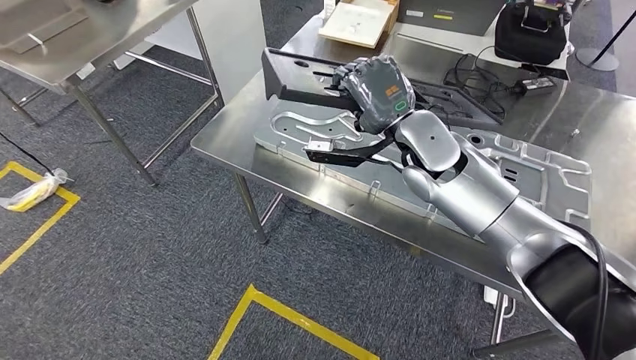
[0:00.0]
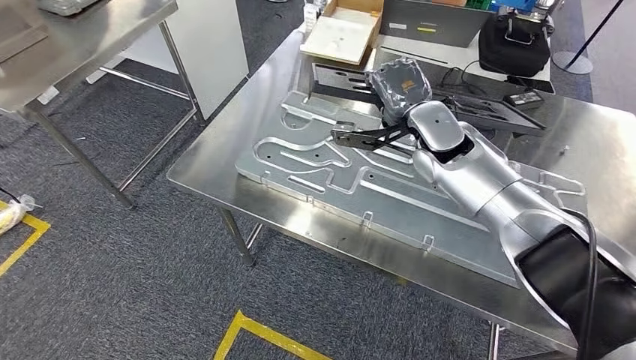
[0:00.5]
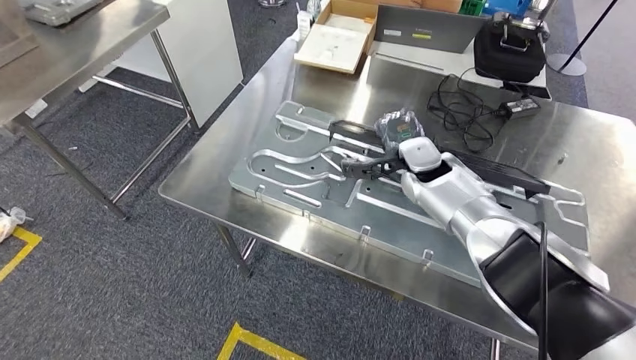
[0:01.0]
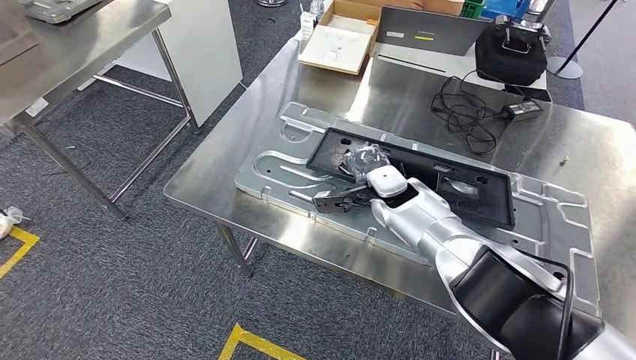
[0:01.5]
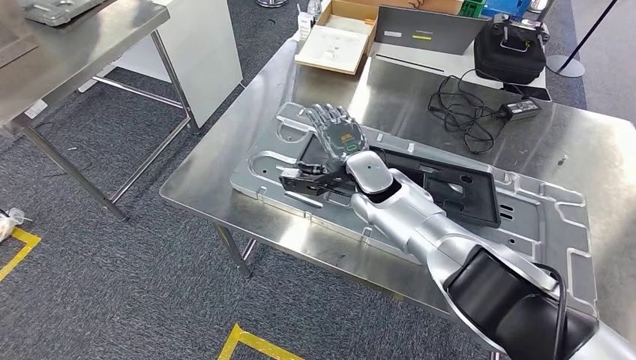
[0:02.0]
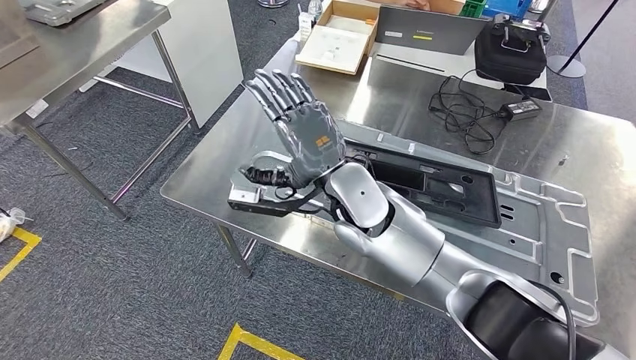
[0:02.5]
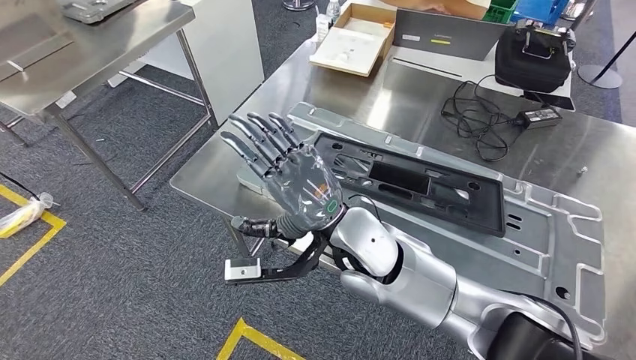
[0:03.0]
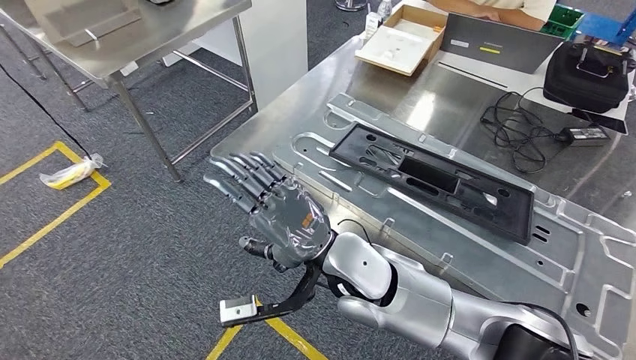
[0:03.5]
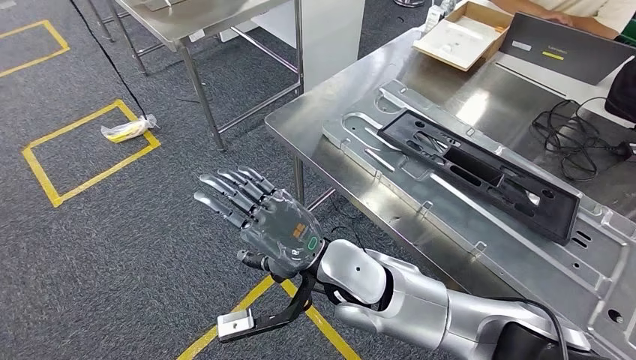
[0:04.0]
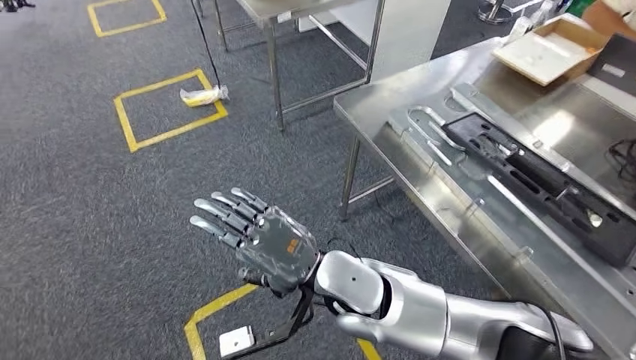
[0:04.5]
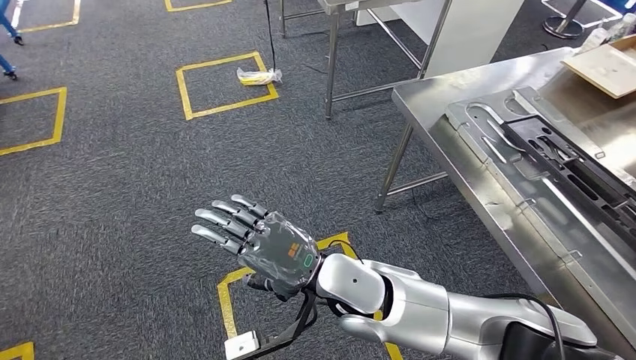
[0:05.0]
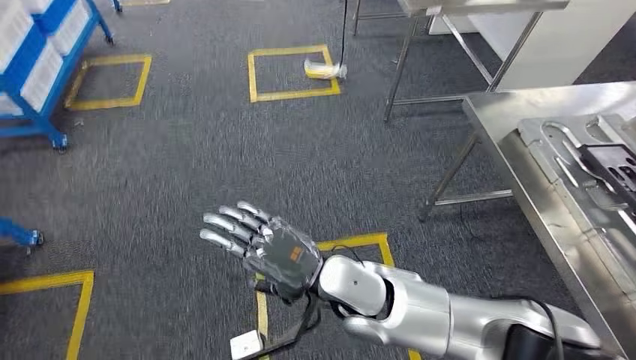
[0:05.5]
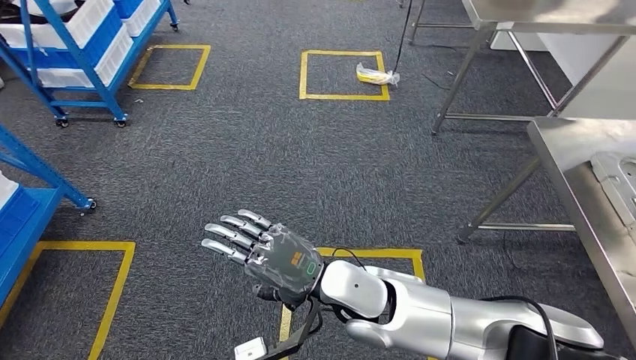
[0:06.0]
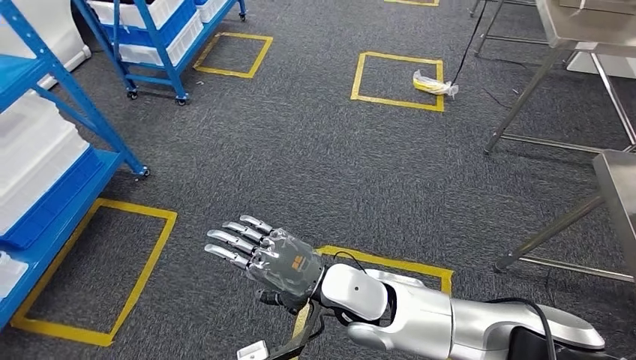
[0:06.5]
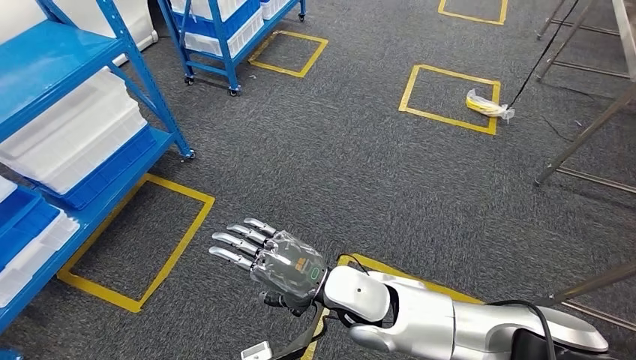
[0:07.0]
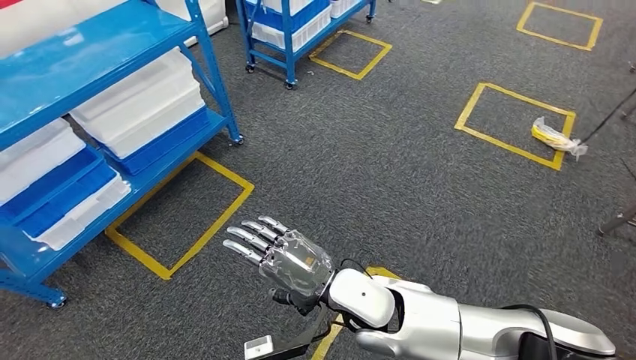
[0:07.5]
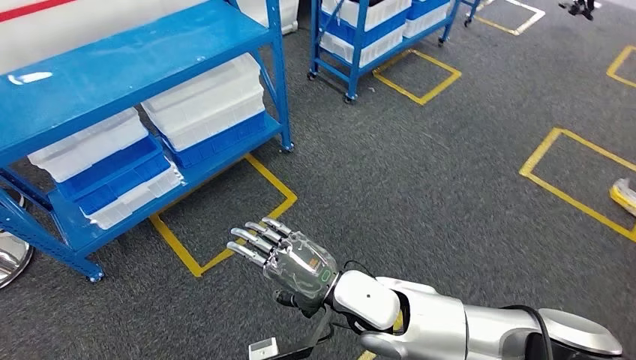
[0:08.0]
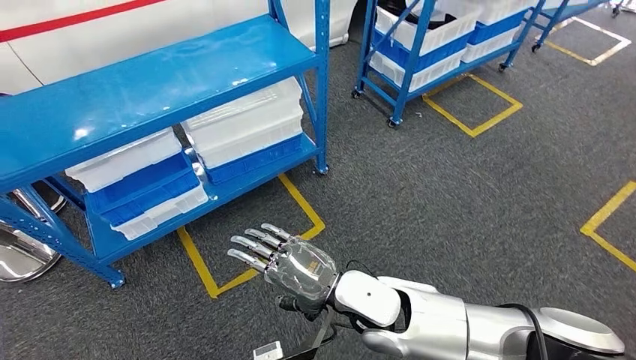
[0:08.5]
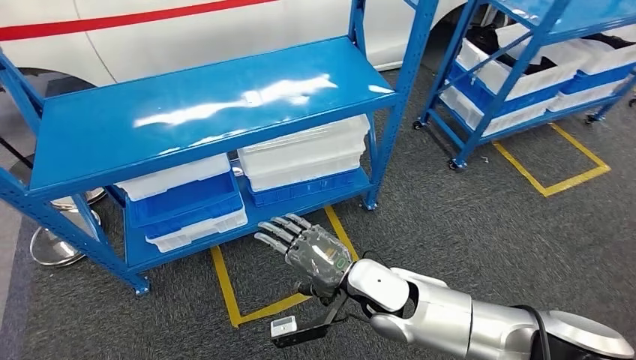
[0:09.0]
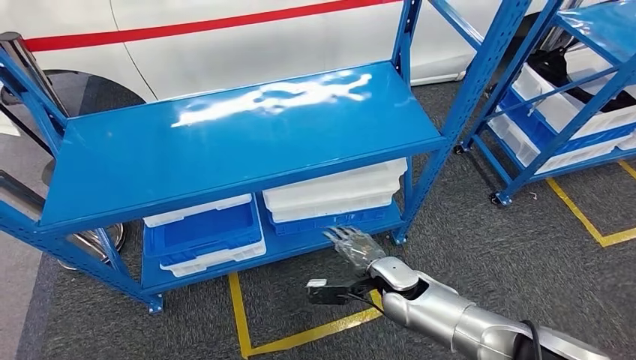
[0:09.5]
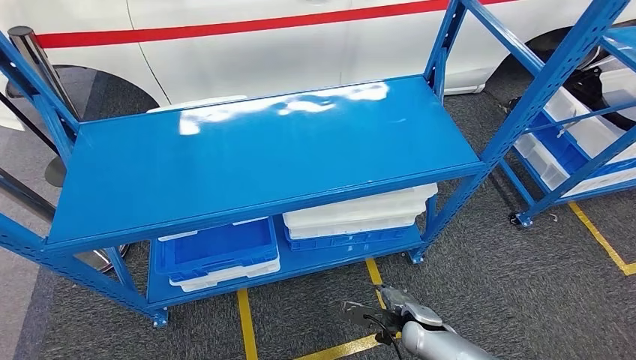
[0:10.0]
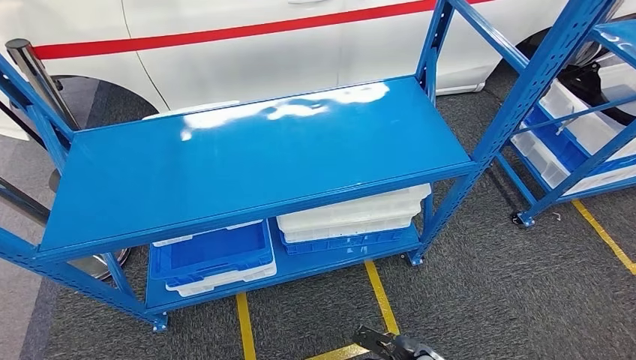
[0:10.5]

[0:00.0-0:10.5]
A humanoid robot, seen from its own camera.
Step, 0:00.5 to 0:03.0: Insert the large material into the corresponding slot on the workbench.
Step, 0:04.5 to 0:10.5: Move to the initial position of the shelf.

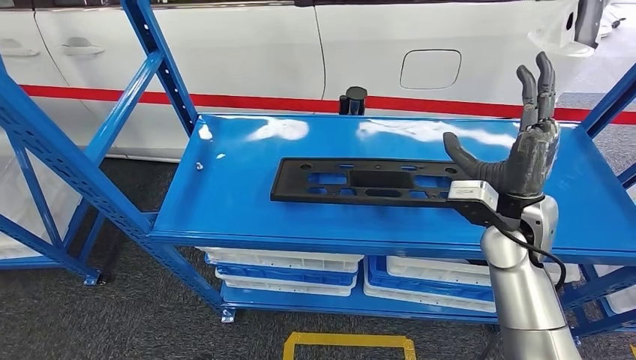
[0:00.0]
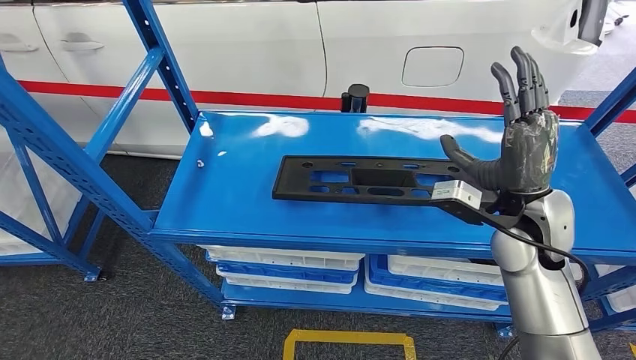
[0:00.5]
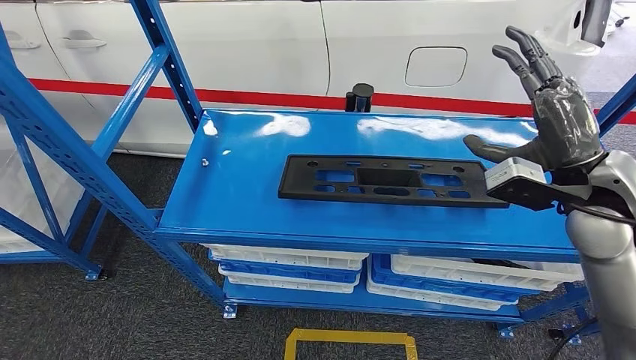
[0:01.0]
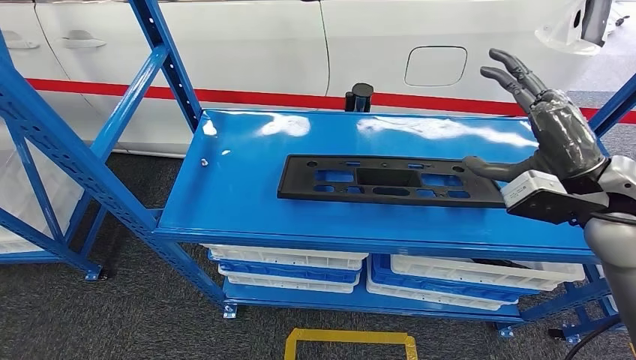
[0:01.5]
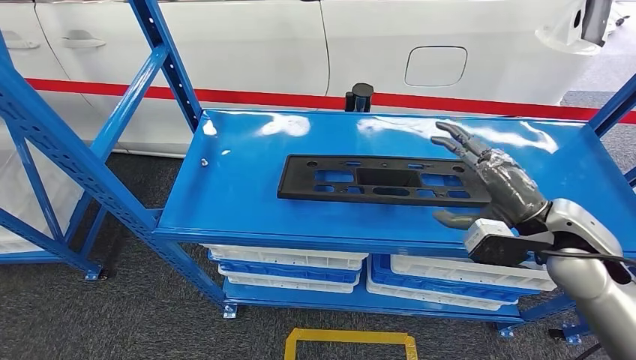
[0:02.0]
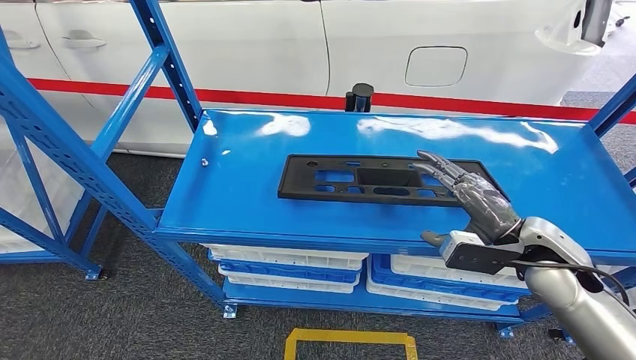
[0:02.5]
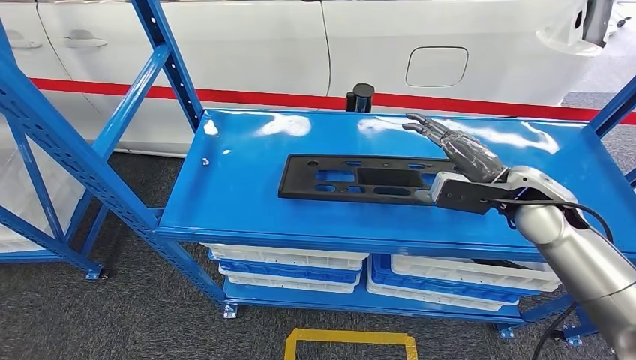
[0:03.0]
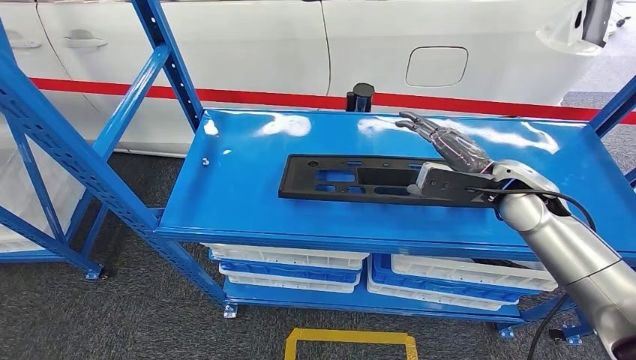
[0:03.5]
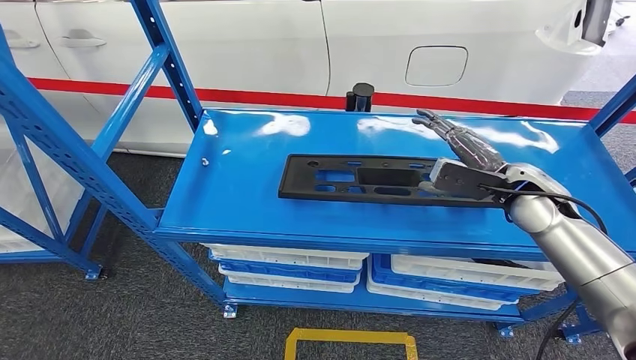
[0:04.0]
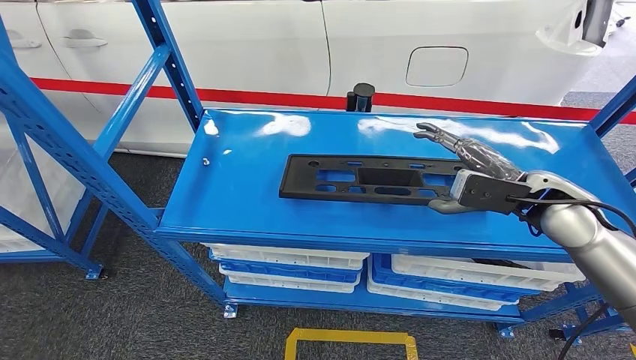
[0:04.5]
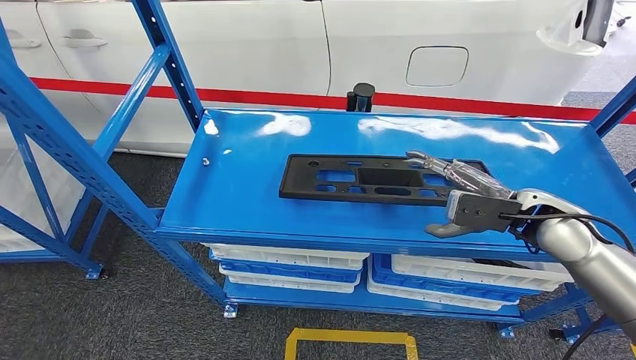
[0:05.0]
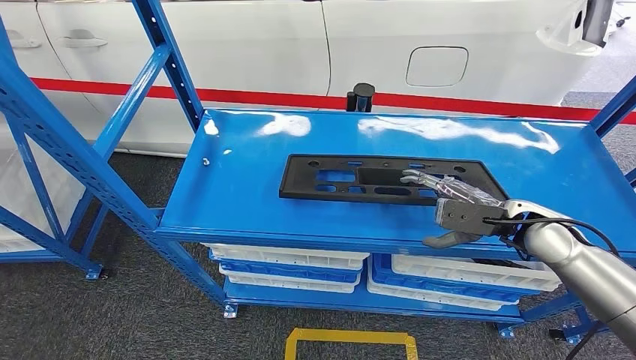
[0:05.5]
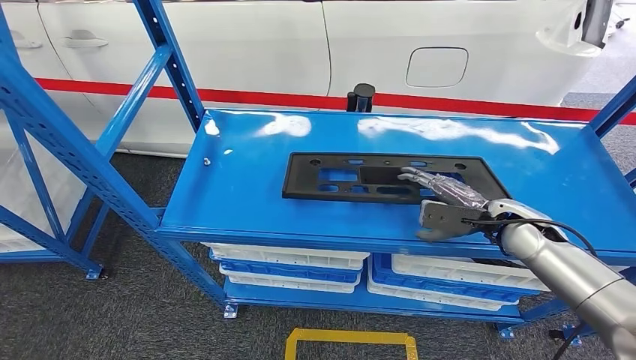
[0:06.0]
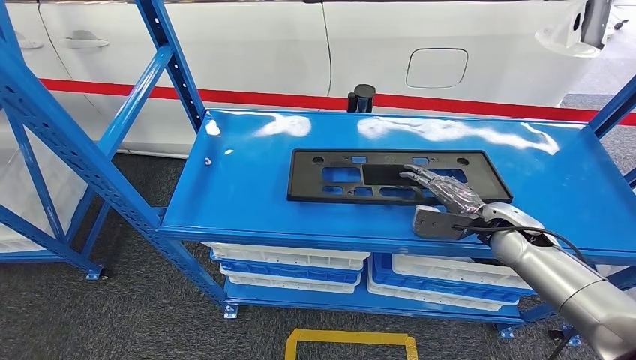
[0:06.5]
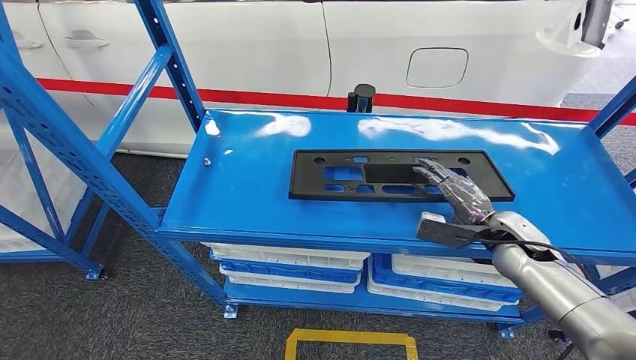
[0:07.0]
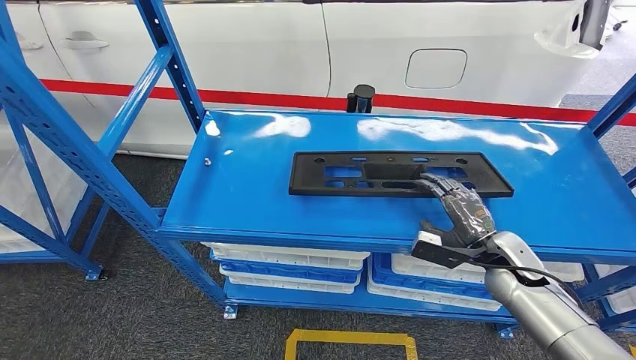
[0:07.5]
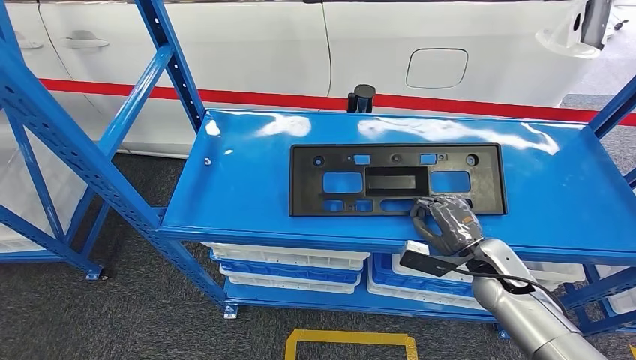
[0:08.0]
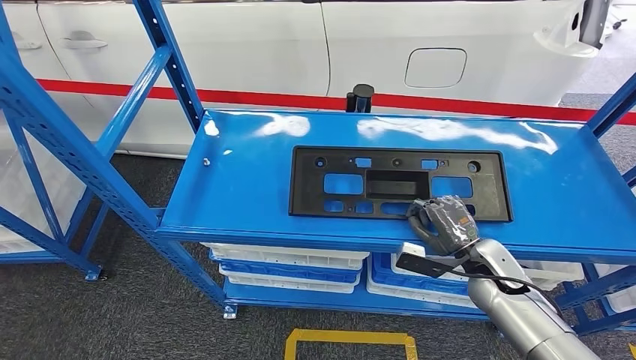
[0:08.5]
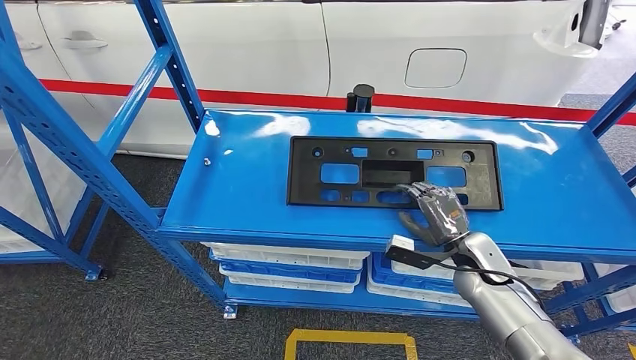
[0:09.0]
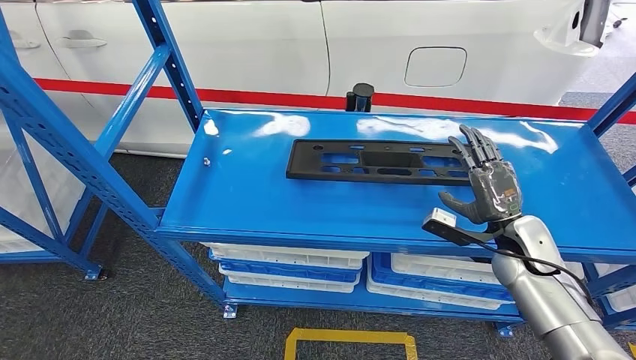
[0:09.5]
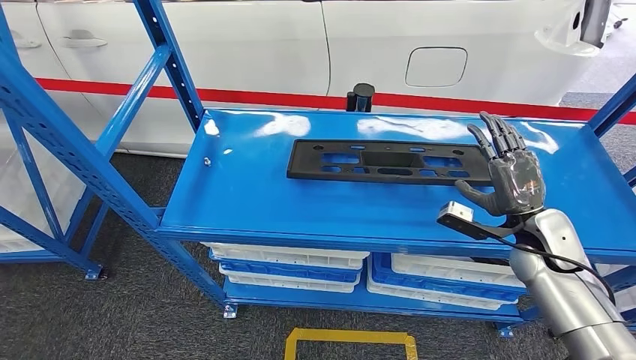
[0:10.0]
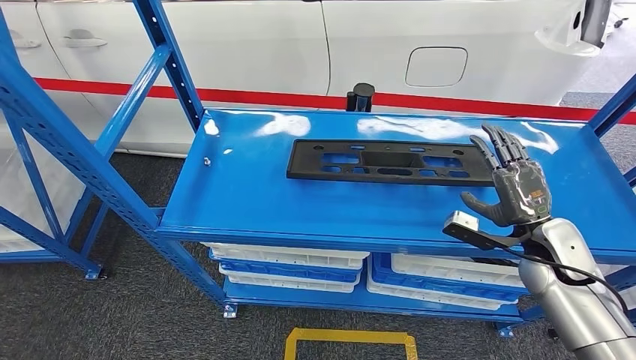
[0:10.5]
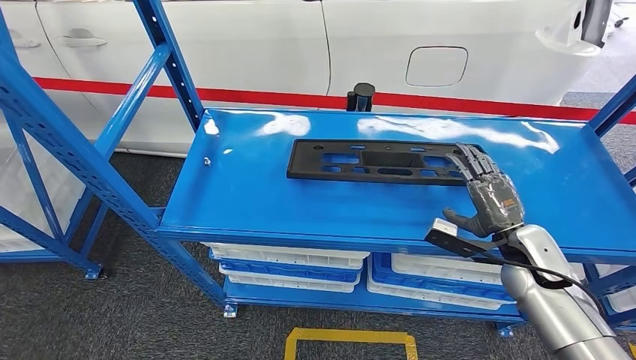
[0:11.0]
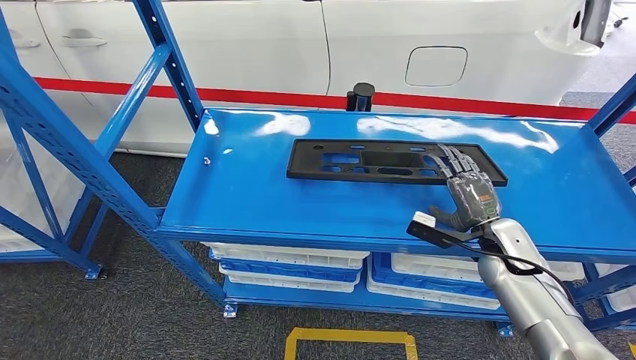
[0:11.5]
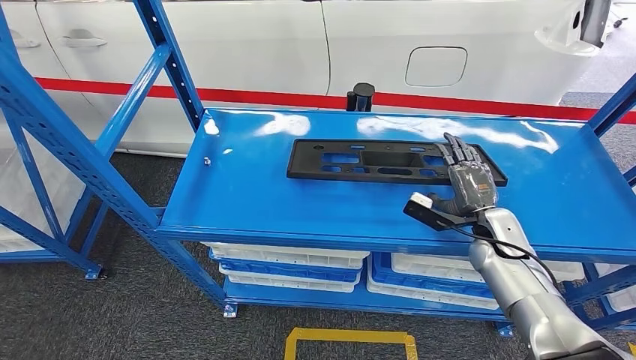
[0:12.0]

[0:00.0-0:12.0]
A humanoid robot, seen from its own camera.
0:02.0 to 0:04.0: The right hand moves forward, about 10 cm.
0:04.0 to 0:06.0: The right hand shifts about 5 cm downward.
0:06.0 to 0:08.0: The right hand moves downward, about 10 cm.
0:08.0 to 0:10.0: The right hand heads upward, covering about 10 cm.
0:10.0 to 0:12.0: The right hand heads downward, covering approximately 5 cm.
